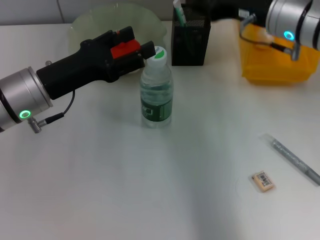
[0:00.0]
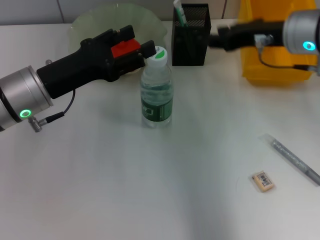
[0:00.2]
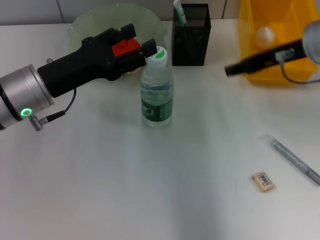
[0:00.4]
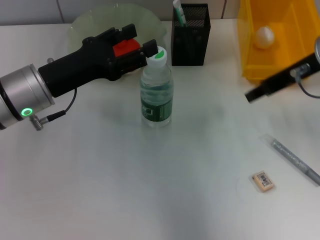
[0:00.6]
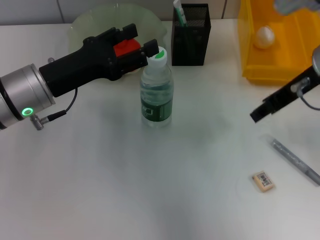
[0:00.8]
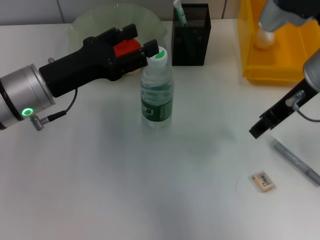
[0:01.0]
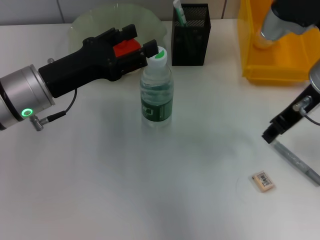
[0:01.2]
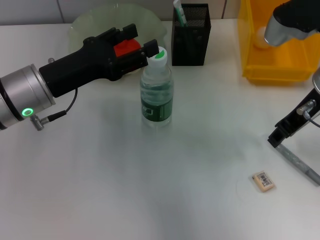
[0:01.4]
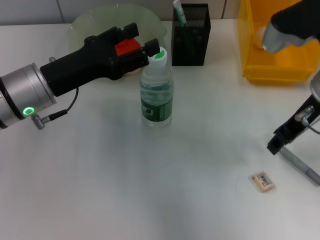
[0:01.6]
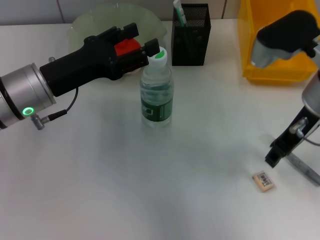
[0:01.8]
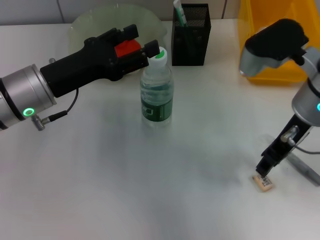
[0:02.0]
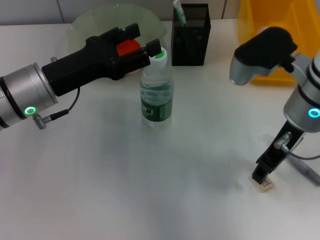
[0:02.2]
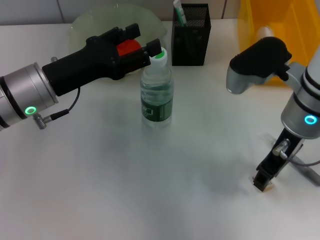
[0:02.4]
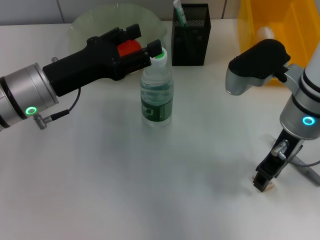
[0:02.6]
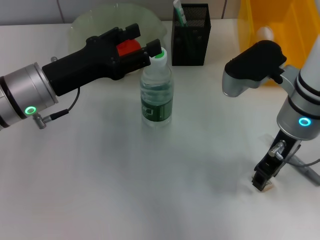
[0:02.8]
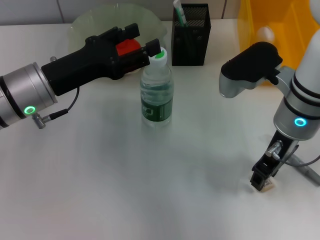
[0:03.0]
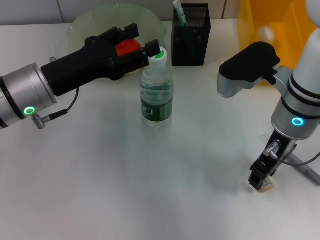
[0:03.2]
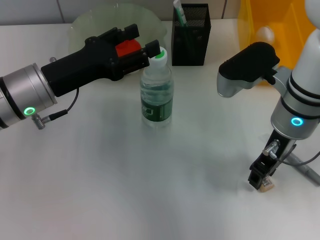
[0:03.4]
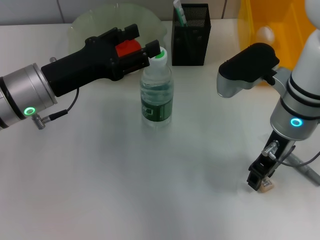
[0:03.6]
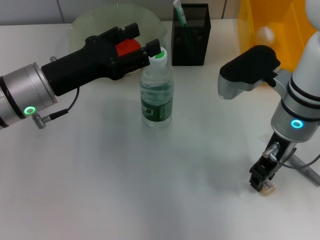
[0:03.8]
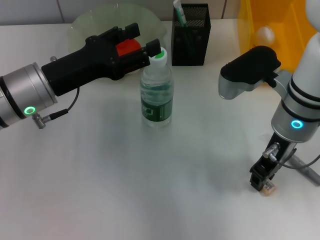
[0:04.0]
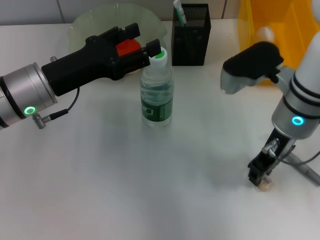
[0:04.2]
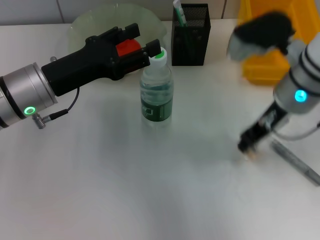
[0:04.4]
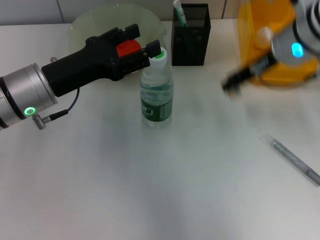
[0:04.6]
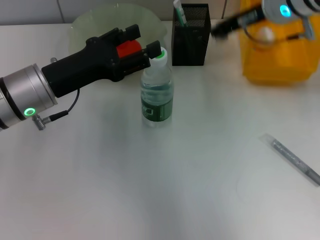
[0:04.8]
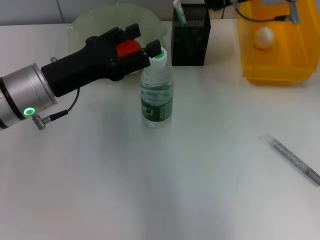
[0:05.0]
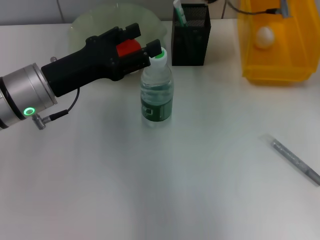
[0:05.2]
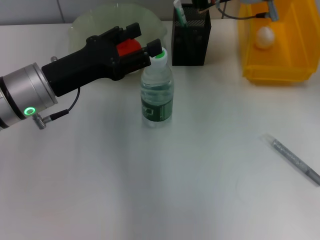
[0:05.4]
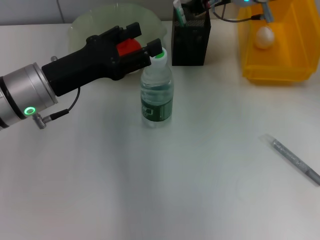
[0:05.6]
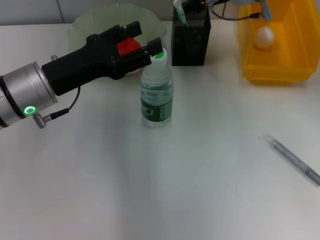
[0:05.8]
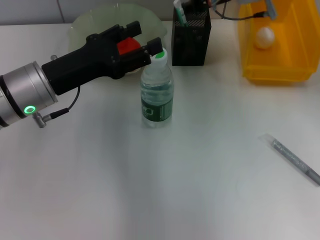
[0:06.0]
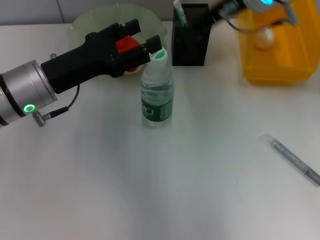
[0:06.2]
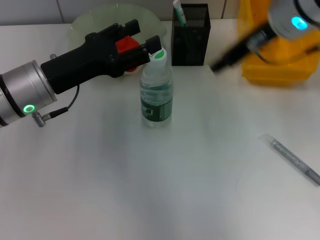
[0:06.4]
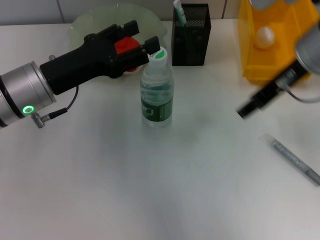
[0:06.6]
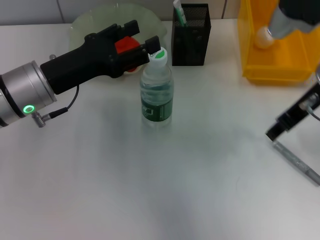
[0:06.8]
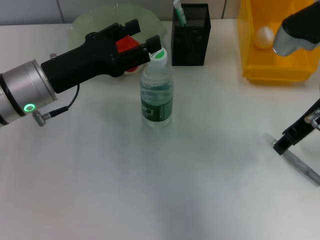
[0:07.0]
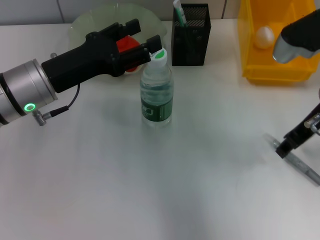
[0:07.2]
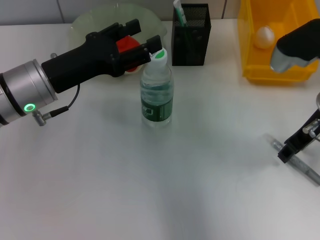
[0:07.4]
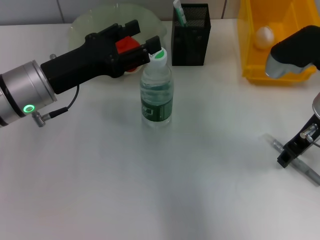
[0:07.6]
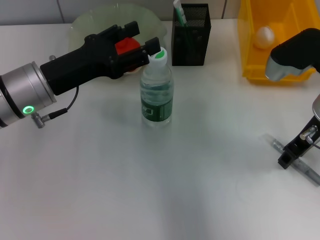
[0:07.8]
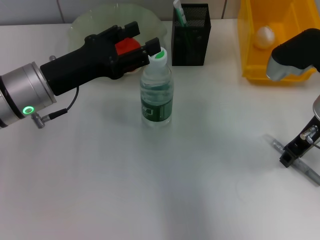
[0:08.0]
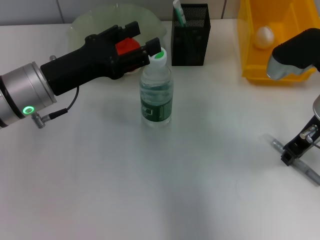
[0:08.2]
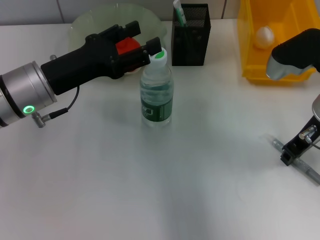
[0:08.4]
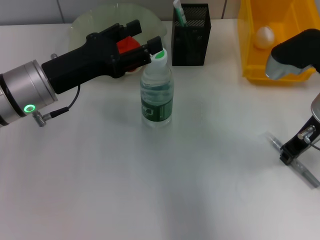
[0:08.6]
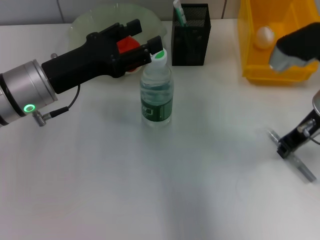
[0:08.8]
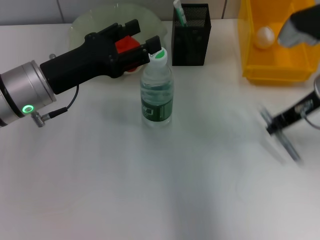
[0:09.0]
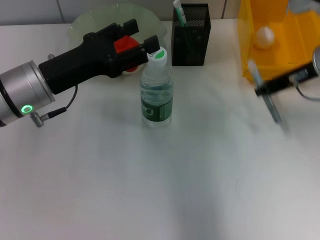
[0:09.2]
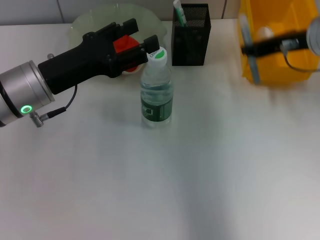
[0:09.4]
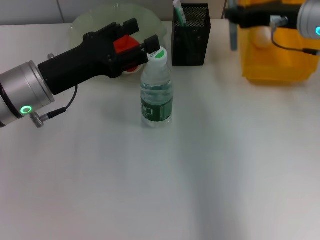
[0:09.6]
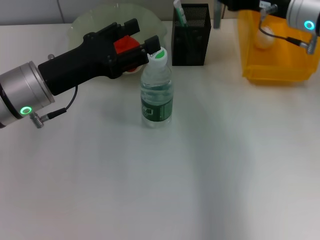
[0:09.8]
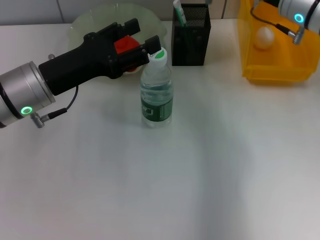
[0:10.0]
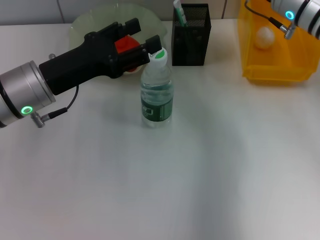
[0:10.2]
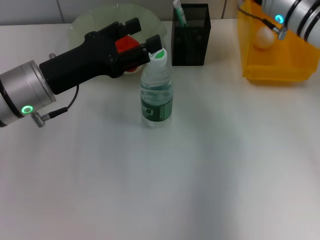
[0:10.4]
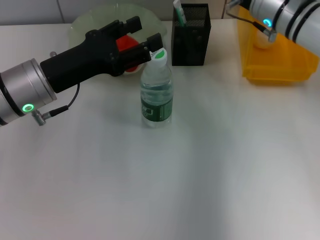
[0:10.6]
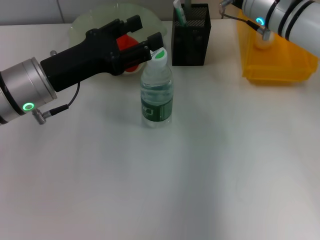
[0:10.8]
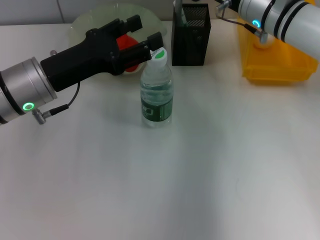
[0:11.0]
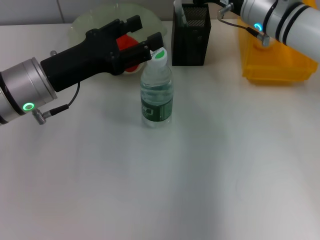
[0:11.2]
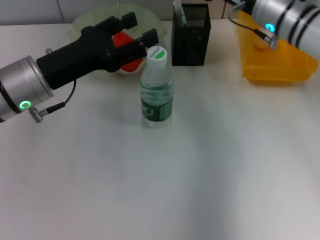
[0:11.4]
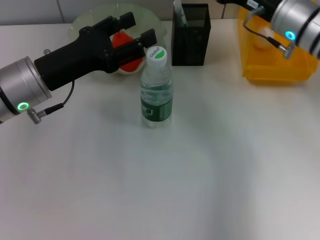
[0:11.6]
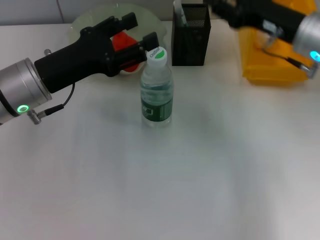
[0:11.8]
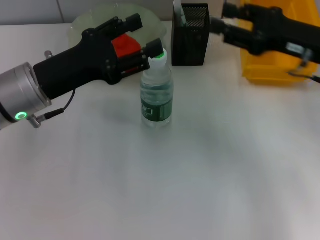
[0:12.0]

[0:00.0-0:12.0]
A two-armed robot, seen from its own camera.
Step, 0.0 to 3.8 s: Grab the eraser with the right hand.
Step, 4.2 to 5.6 s: Put the eraser into the pen holder with the right hand.
Step, 6.0 to 8.4 s: Grab the gray glue with the right hand.
Step, 8.6 to 11.2 s: Place the gray glue into the pen holder with the right hand.
0.0 to 1.6 s: The right gripper heads backward, covering some 5 cm.
1.6 to 3.0 s: The right gripper shifts by some 5 cm.
3.0 to 4.4 s: The grippers move only a little.
4.4 to 6.0 s: The right gripper is displaced forward by roughly 10 cm.
6.0 to 7.6 s: The right gripper goes approximately 15 cm backward, to the right and downward.
7.6 to 9.0 s: The right gripper closes its fingers.
9.0 to 10.4 s: The right gripper travels forward by about 10 cm.
10.4 to 12.0 s: The right gripper heads backward and to the right, covering some 10 cm, and opens its fingers.

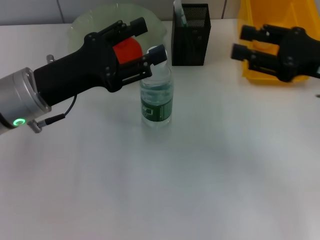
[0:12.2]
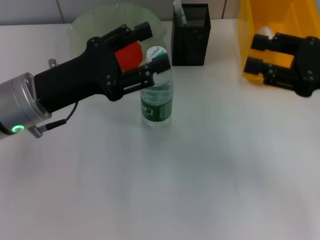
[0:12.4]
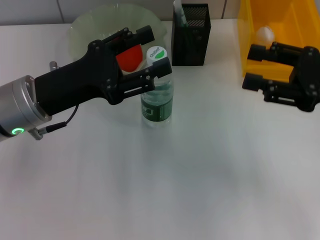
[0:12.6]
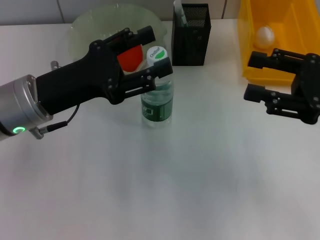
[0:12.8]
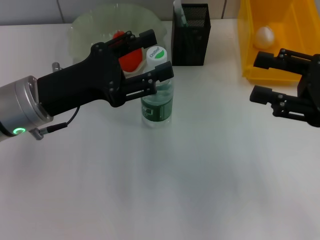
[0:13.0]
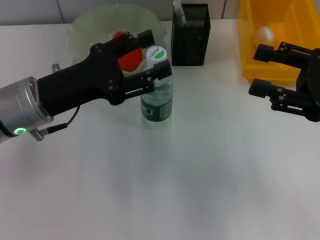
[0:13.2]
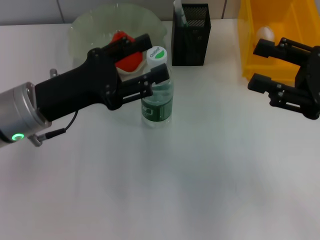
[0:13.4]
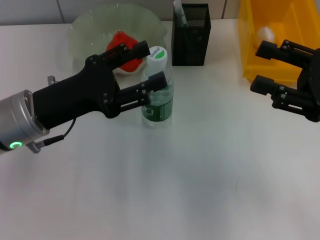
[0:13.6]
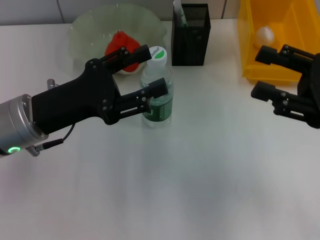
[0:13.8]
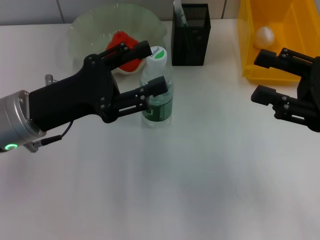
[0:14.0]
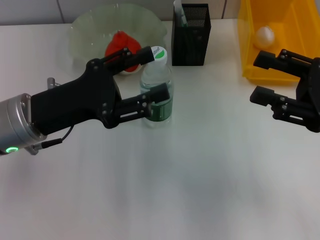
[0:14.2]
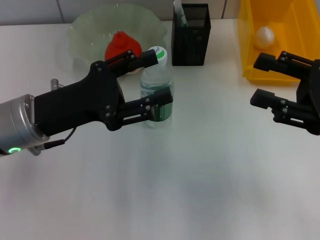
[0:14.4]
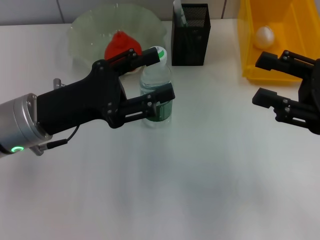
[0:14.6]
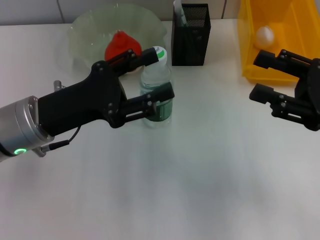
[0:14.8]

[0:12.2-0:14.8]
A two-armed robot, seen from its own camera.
12.2 to 14.8 s: The grippers stay close to where they were, moving slightly.

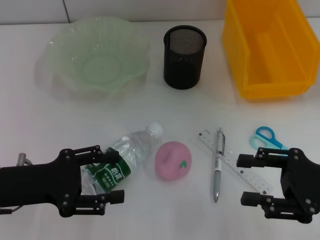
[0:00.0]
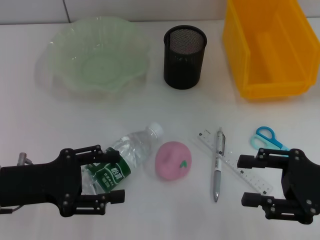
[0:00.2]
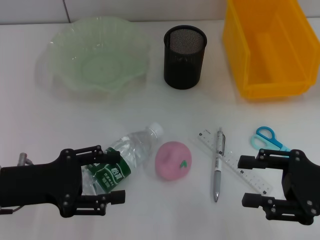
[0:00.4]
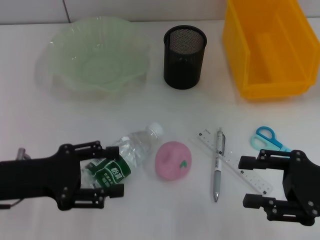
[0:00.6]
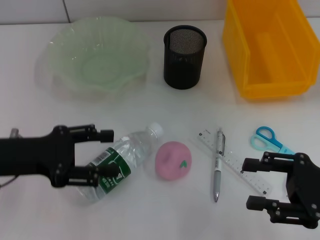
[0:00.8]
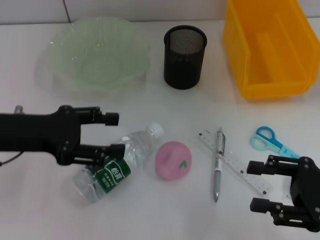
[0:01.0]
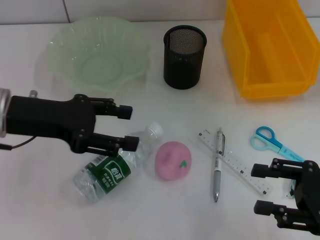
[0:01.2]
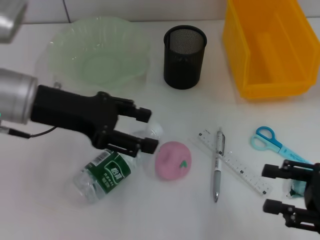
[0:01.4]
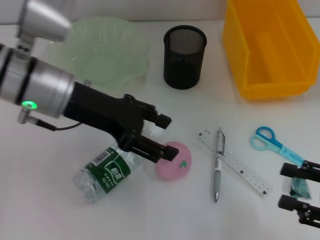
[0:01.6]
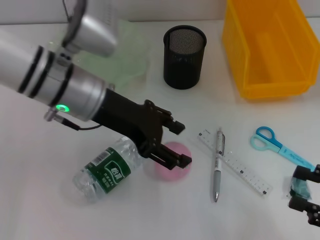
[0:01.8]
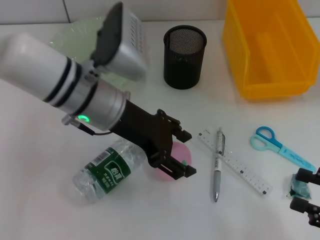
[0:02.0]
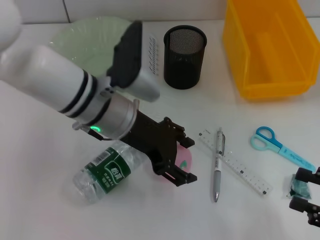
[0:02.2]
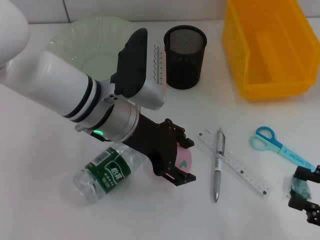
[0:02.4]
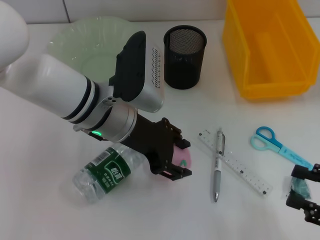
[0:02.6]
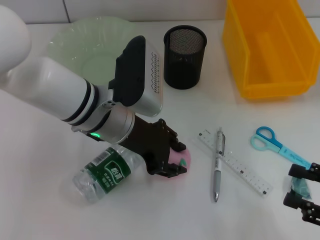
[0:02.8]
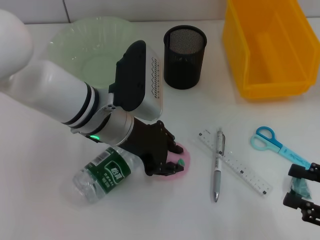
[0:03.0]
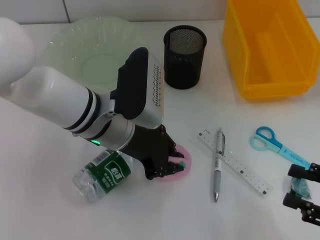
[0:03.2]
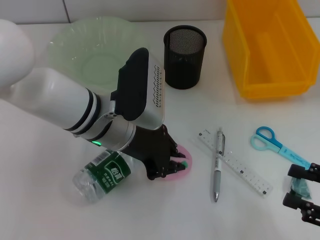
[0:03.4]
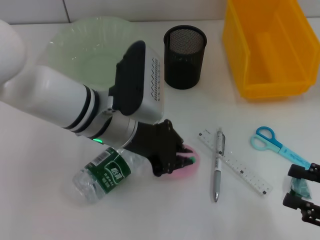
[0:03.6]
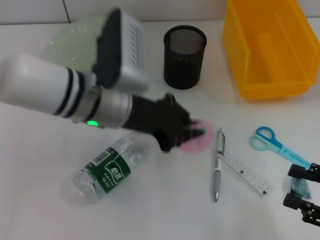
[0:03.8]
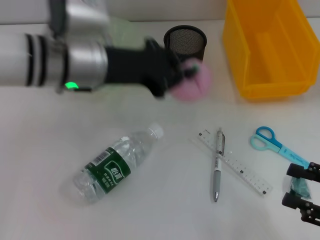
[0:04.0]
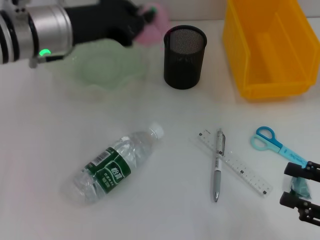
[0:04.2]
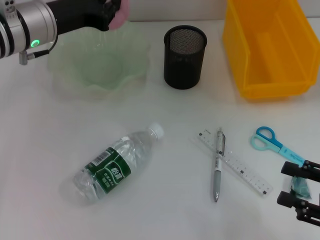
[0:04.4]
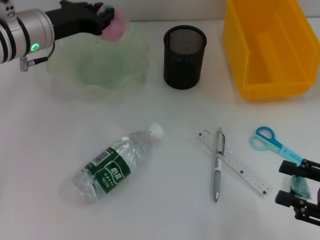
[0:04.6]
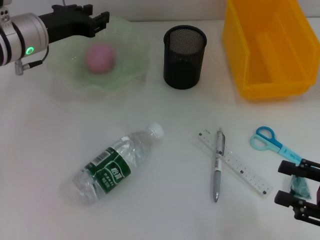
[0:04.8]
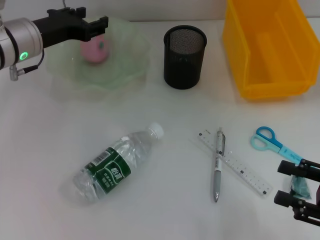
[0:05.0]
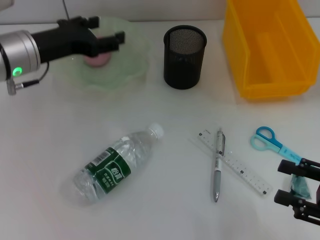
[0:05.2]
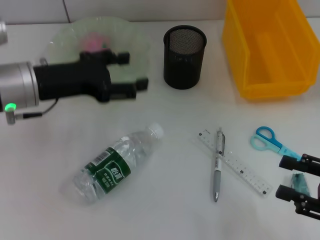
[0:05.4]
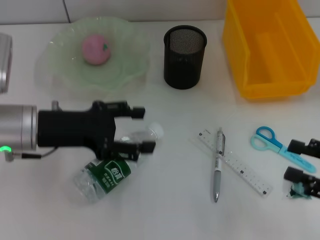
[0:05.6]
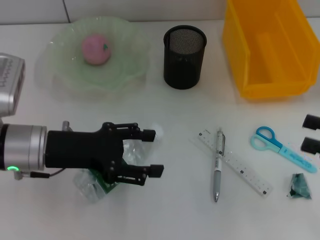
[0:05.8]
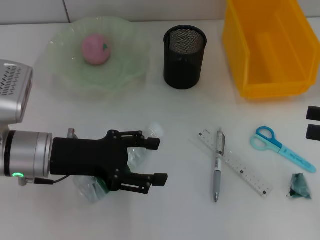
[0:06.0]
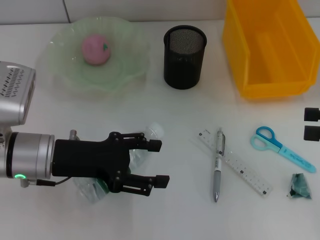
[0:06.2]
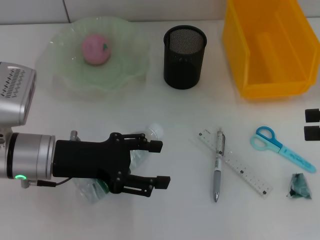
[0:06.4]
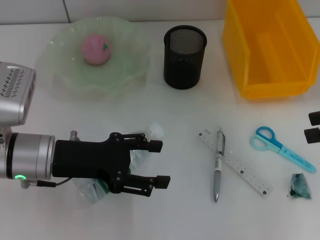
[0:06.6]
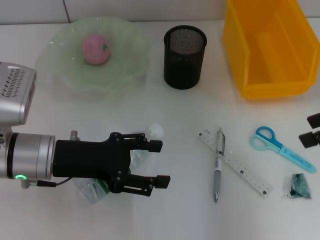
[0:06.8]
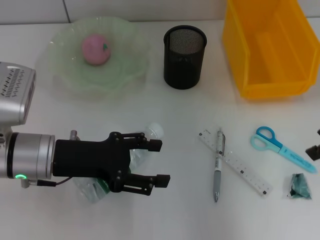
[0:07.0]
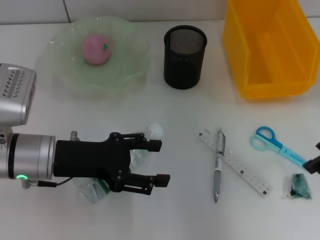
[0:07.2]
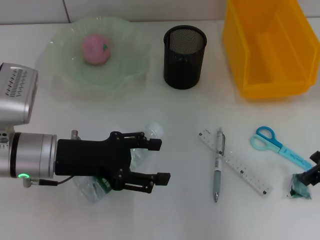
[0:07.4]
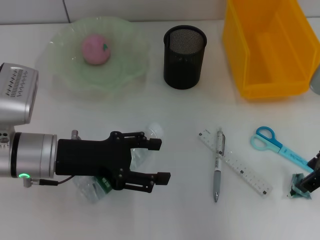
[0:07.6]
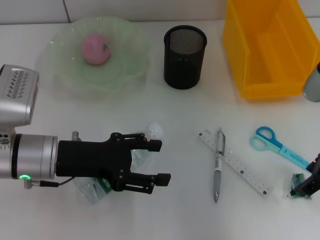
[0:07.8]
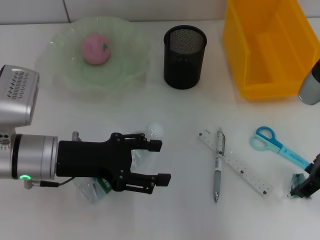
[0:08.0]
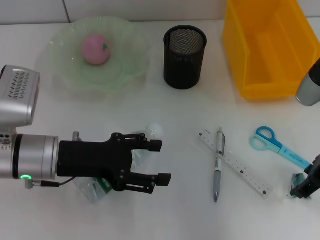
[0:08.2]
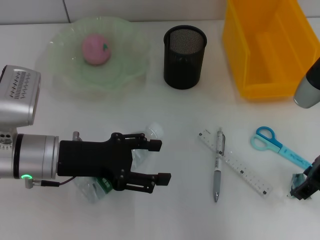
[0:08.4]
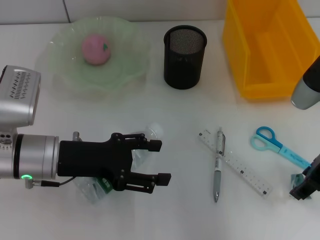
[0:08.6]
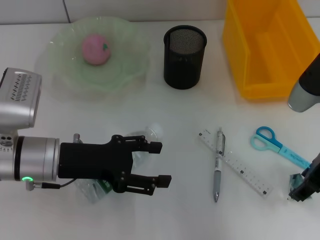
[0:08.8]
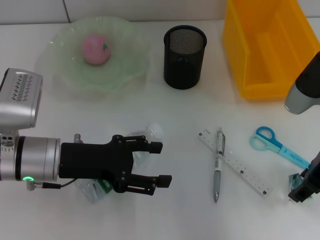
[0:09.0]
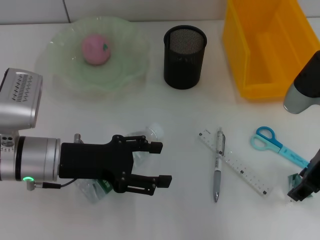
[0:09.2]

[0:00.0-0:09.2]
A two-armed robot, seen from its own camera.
Step, 0.0 to 3.2 s: Grab the peach with the left hand.
Step, 3.4 to 5.0 s: Place the peach into the fruit bowl with the left hand.
0.0 to 1.6 s: The right gripper ends up roughly 5 cm from where it was, while the left gripper heads to the right, forward and upward, covering some 15 cm.
1.6 to 3.0 s: The left gripper travels to the right and downward by some 10 cm.
3.0 to 4.6 s: The left gripper is displaced to the left and forward by some 15 cm, and closes.
4.6 to 6.2 s: The left gripper moves backward, approximately 15 cm, and opens. The right gripper shifts about 15 cm forward and upward.
6.2 to 7.6 s: The right gripper shifts about 10 cm to the left.
7.6 to 9.2 s: The grippers stay close to where they were, moving slightly.
